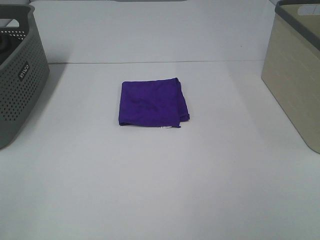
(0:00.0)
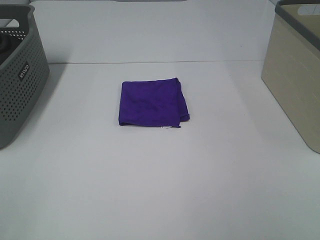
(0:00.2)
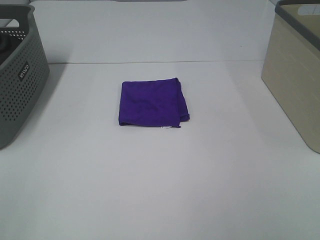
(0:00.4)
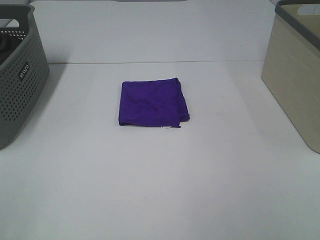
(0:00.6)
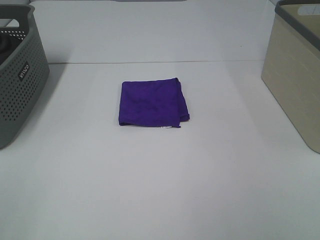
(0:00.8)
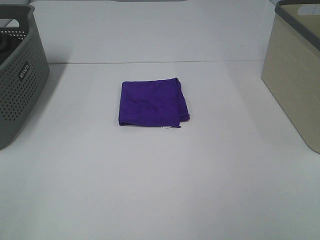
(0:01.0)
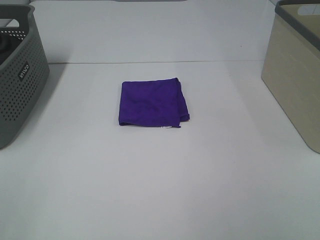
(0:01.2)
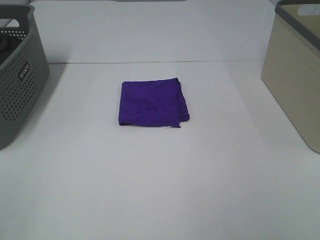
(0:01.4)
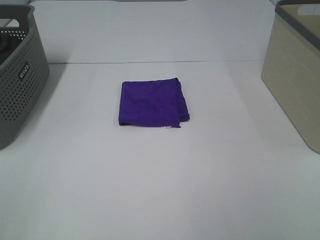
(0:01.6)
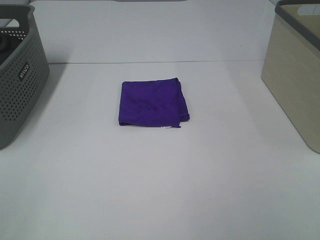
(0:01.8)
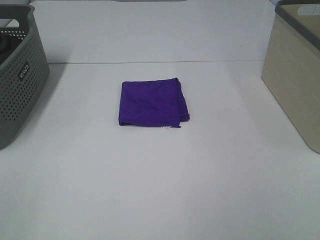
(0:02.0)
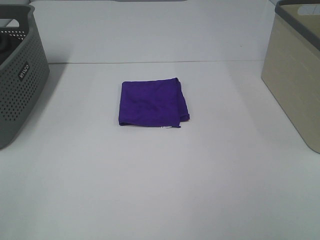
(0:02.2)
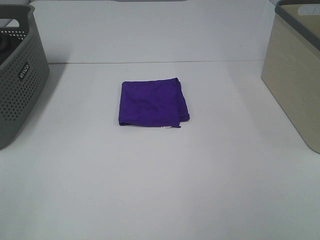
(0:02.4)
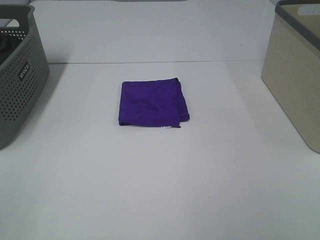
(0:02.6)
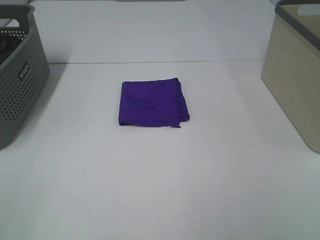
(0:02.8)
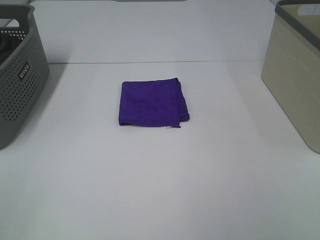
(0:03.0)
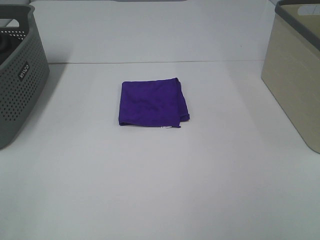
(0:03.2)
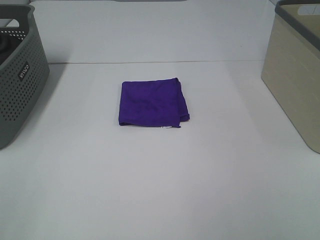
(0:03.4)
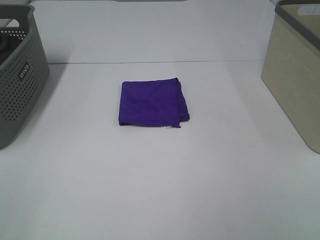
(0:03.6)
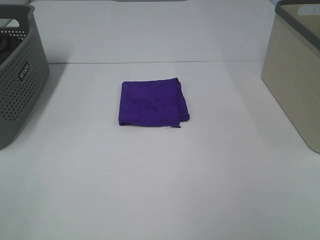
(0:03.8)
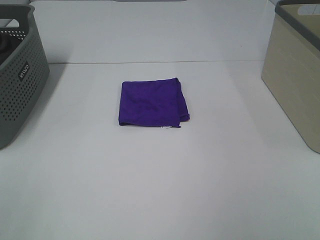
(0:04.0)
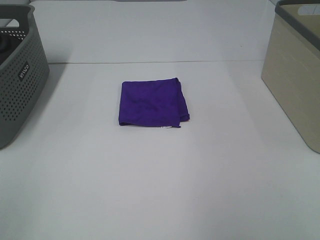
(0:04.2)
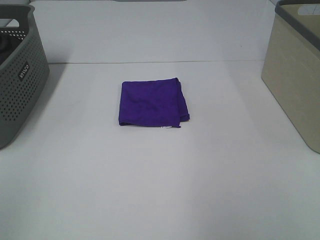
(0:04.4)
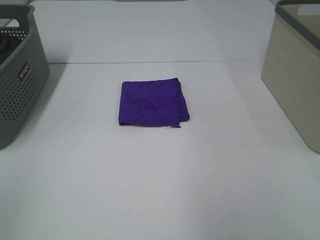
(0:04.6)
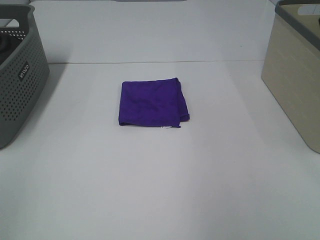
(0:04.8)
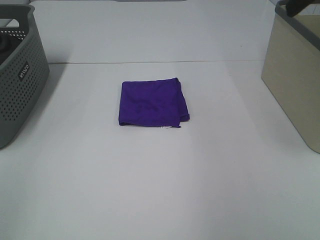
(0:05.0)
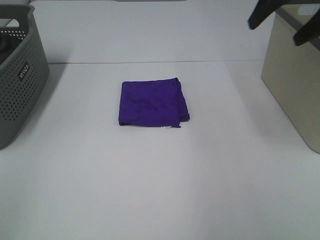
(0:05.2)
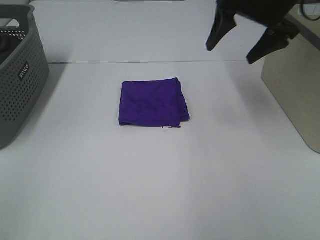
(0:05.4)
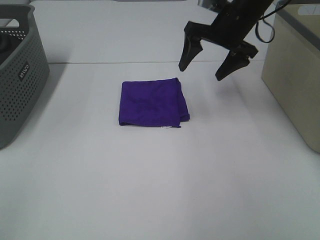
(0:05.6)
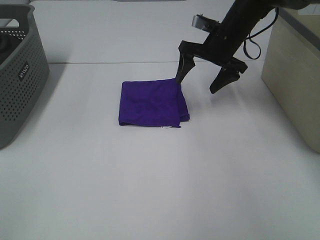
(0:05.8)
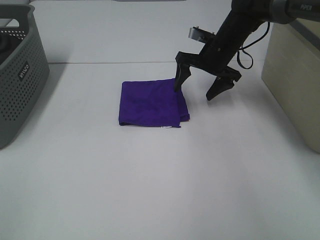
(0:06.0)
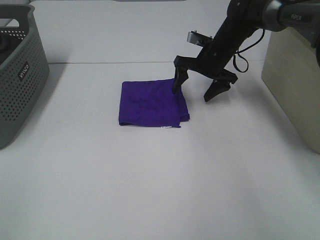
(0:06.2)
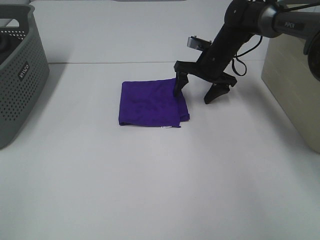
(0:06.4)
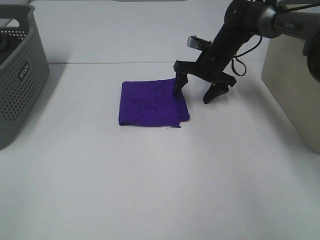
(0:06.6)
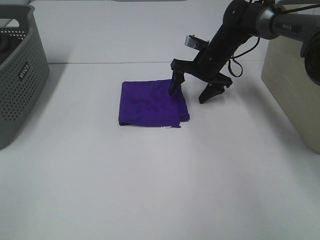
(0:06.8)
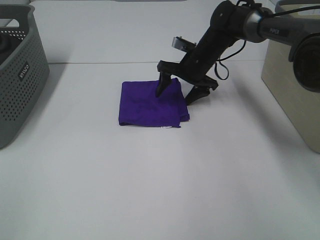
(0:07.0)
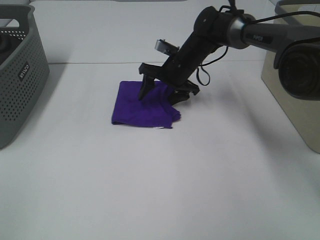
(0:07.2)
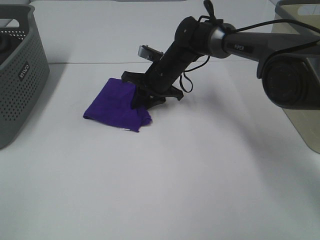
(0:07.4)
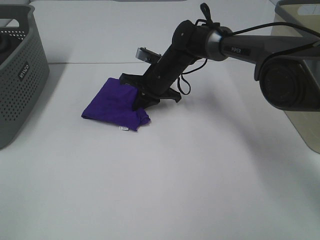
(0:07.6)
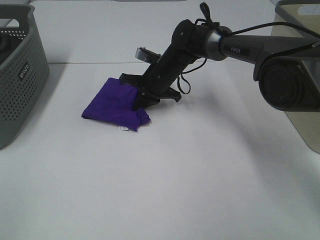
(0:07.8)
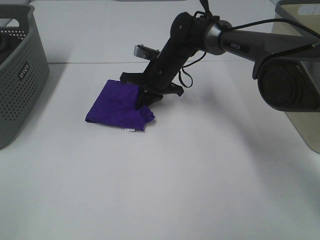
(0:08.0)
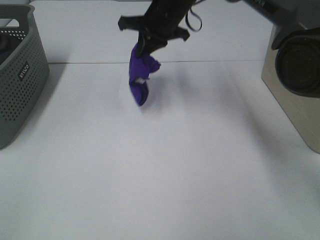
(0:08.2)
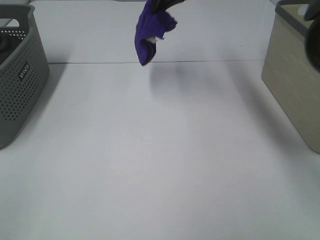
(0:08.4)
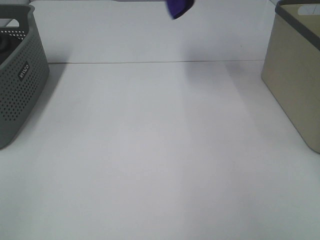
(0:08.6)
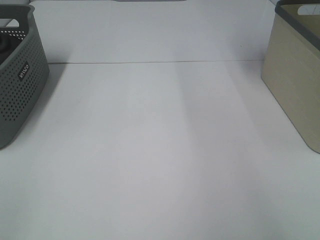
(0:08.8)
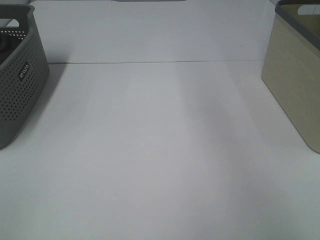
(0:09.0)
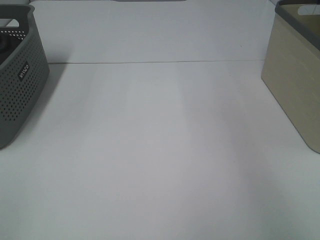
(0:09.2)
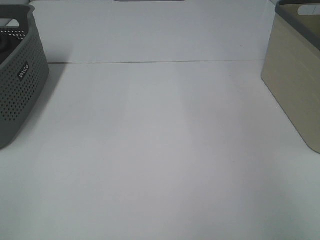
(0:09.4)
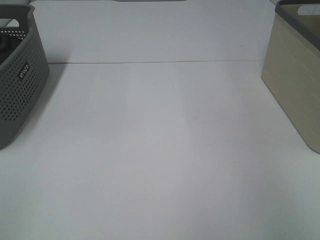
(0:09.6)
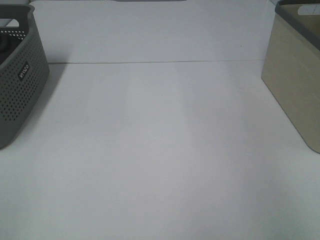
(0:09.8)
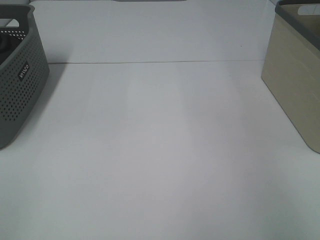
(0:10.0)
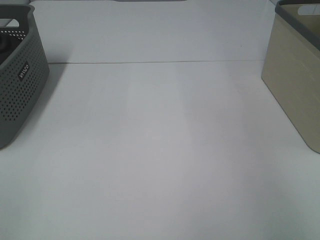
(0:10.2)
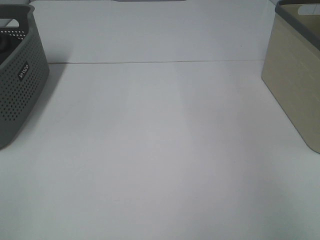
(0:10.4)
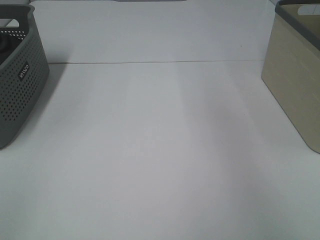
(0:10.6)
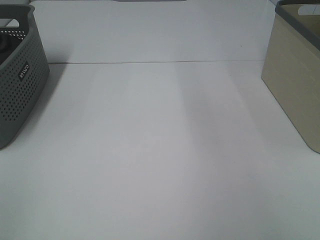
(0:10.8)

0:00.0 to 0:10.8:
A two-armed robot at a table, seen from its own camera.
Step, 0:00.0 to 0:07.6: Right hand: grab the folded purple towel.
Step, 0:07.8 to 0:10.2: Right hand: place the purple towel in right basket.
0:00.0 to 0:03.0: The two grippers keep their place.
0:04.6 to 0:06.2: The right gripper is displaced forward, downward and to the left by some 40 cm.
0:06.2 to 0:07.8: The right gripper heads to the left, covering about 10 cm, and closes up.
0:07.8 to 0:09.2: The right gripper heads to the right and upward, covering roughly 50 cm.

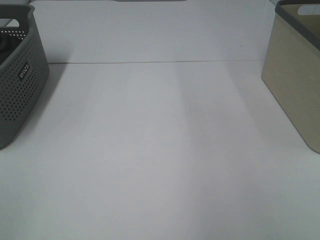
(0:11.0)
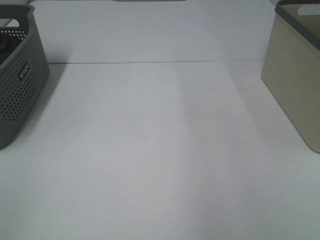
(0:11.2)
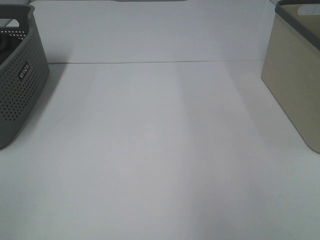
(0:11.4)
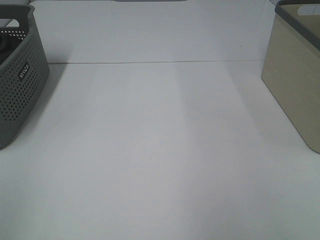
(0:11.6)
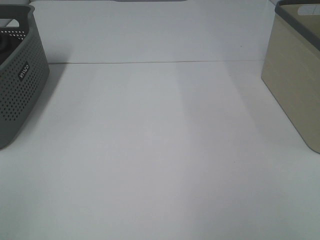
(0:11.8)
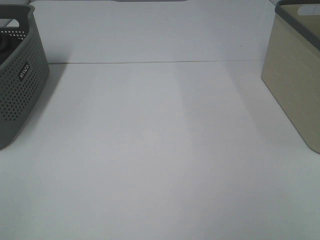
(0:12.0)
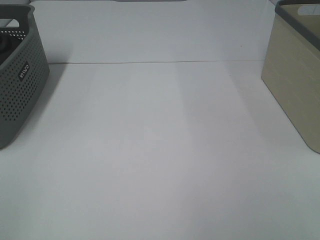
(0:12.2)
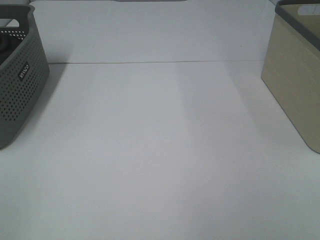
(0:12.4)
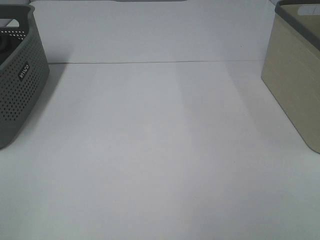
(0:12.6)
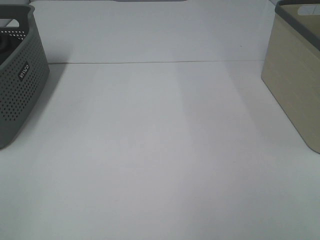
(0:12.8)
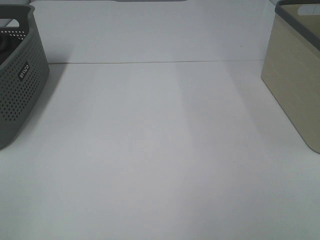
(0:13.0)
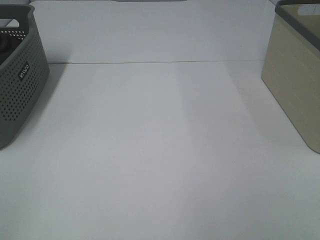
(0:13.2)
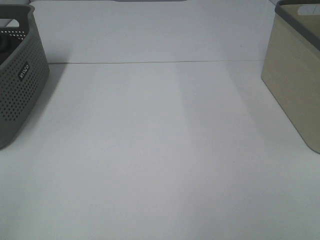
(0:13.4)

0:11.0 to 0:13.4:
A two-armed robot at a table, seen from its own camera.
0:12.2 to 0:13.4: Neither gripper changes place.

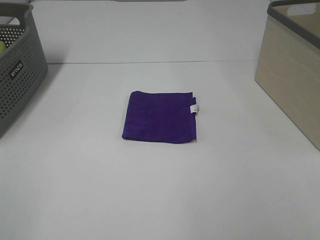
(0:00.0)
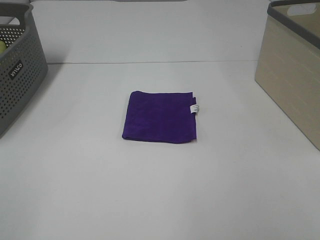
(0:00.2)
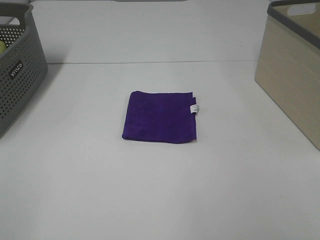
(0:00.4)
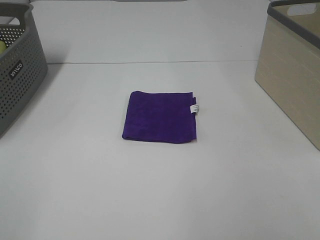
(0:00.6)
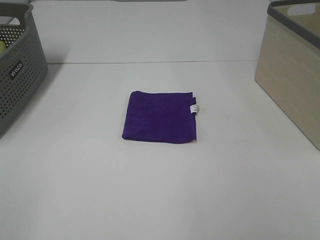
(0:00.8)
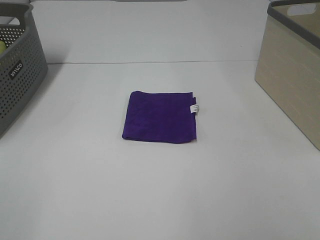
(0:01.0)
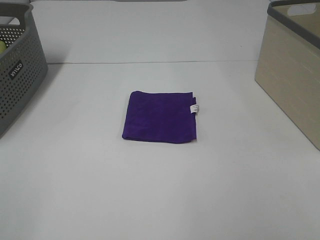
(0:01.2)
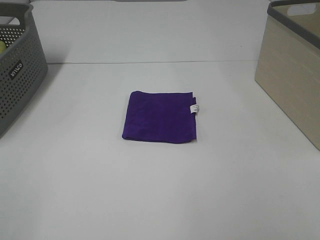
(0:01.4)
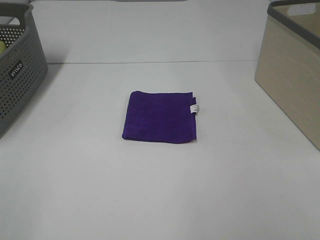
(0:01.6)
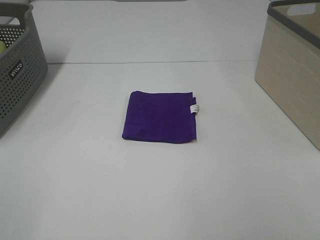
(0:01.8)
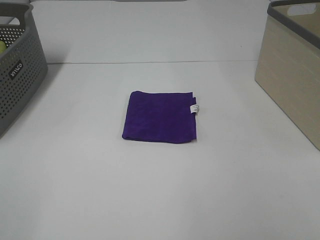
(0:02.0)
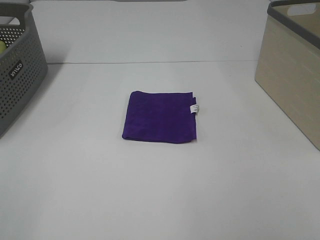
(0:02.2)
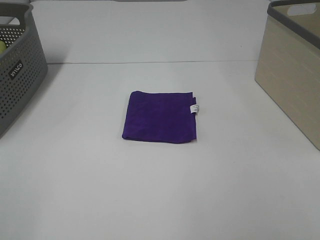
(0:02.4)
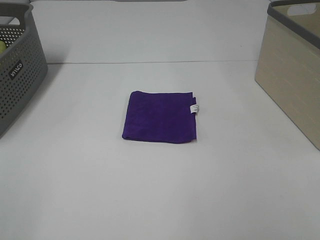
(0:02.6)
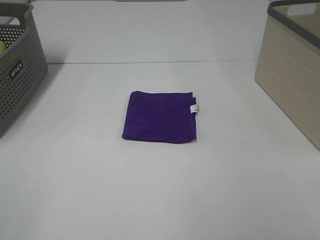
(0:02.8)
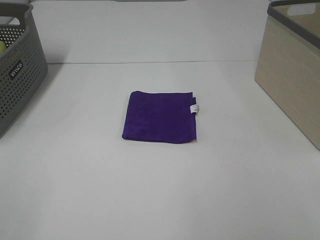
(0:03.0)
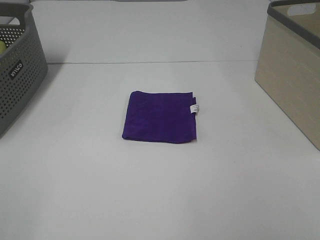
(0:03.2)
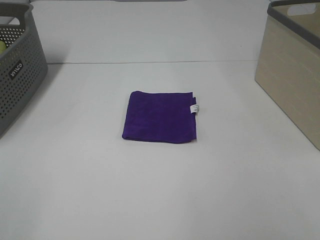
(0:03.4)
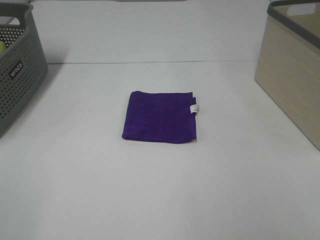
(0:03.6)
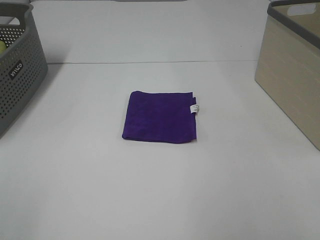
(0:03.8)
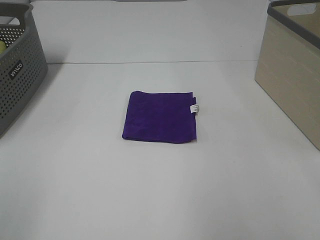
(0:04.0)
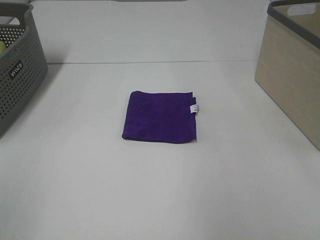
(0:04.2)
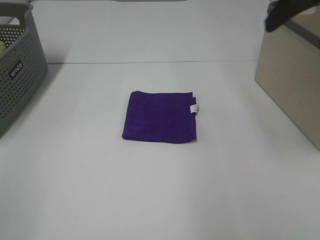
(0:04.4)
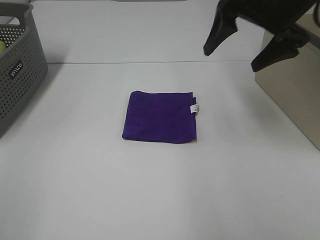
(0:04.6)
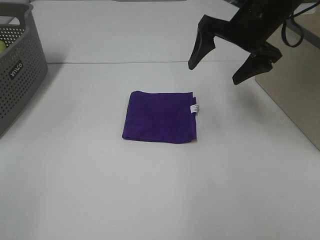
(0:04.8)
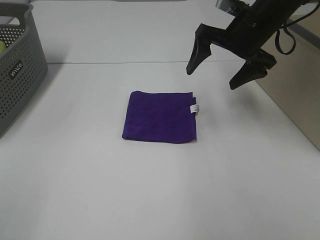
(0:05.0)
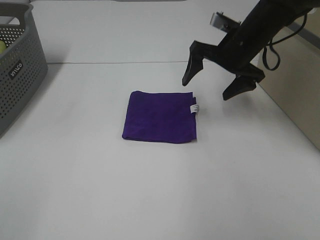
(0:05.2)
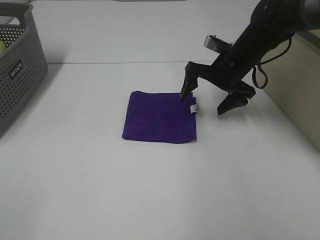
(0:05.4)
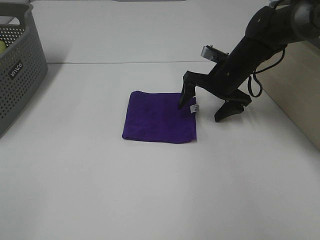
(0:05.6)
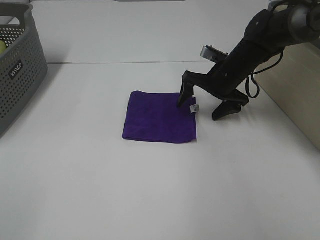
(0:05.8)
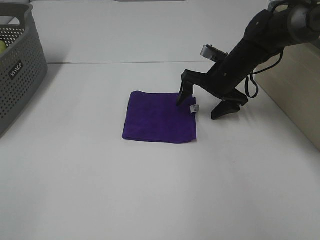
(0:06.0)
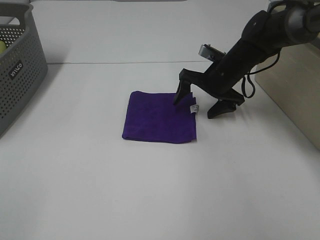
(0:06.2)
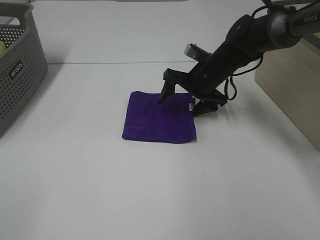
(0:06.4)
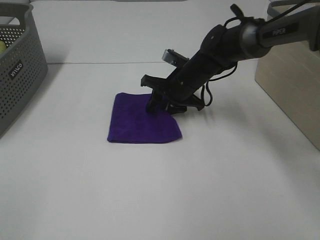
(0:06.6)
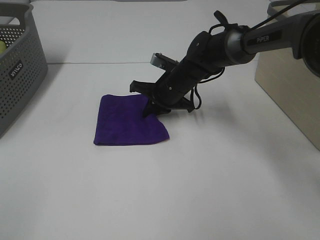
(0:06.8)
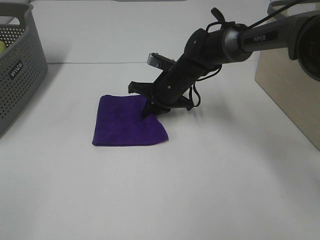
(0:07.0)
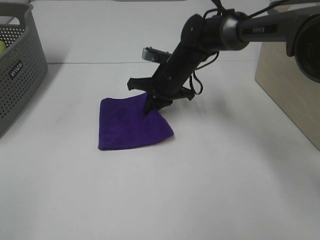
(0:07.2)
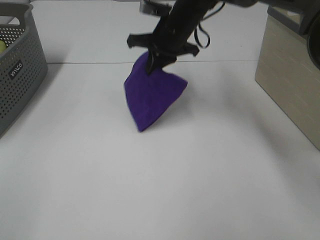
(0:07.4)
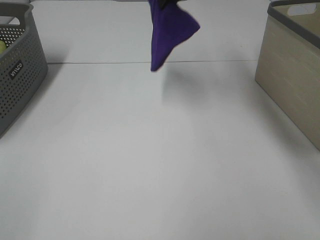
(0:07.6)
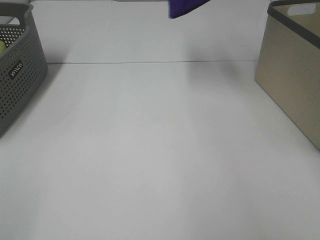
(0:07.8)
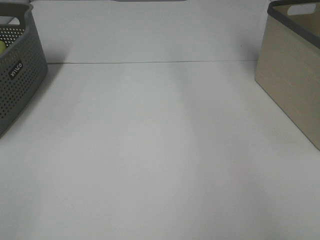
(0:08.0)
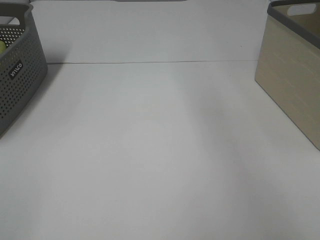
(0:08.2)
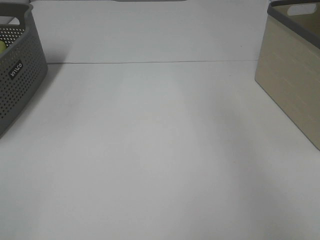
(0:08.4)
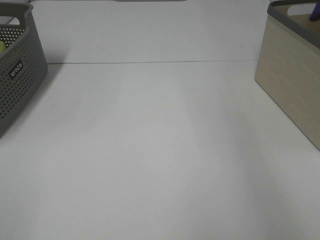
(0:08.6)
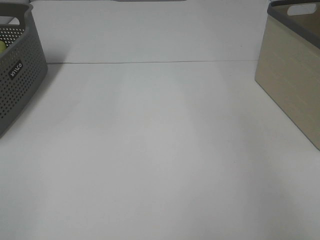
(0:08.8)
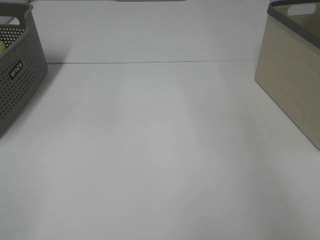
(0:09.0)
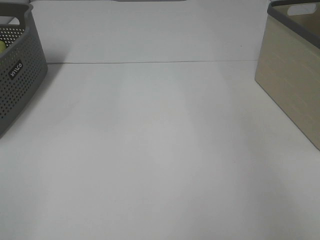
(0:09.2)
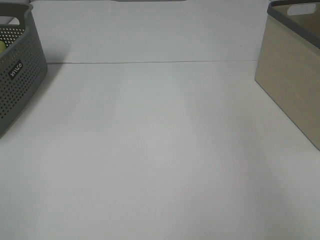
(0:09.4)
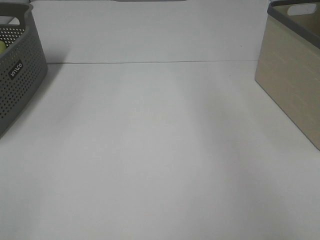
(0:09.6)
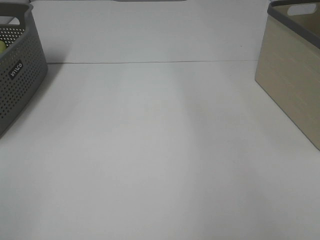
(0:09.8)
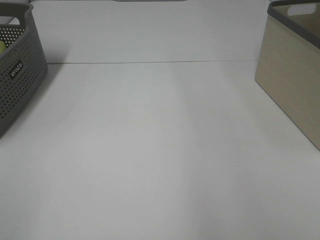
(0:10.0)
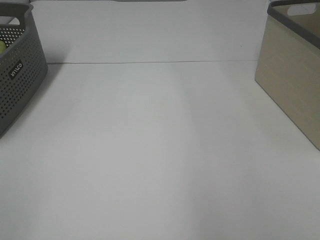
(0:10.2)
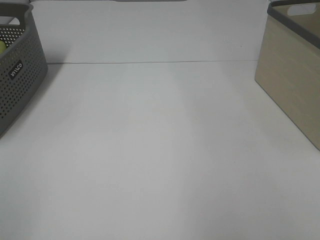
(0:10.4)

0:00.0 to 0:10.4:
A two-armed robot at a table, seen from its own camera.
Step, 0:00.0 to 0:06.8: Right hand: grab the folded purple towel.
Step, 0:07.0 to 0:09.4: Right hand: place the purple towel in right basket.
0:00.0 to 0:03.0: Both grippers stay put.
0:03.0 to 0:04.4: The right gripper is displaced forward by roughly 30 cm.
0:04.4 to 0:06.0: The right gripper shifts roughly 30 cm downward and forward.
0:06.0 to 0:07.4: The right gripper travels to the left and upward by roughly 15 cm, and closes.
0:07.4 to 0:09.0: The right gripper heads to the right, covering some 35 cm, and opens its fingers.
